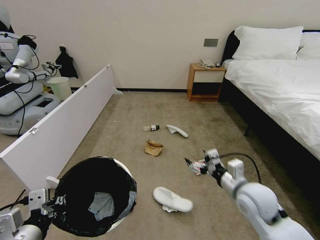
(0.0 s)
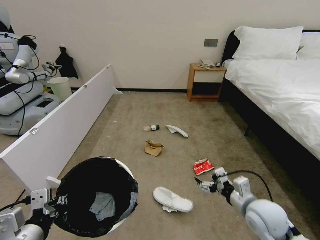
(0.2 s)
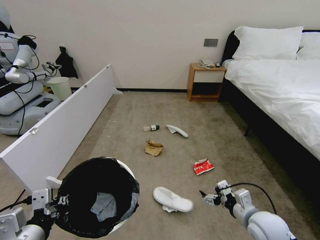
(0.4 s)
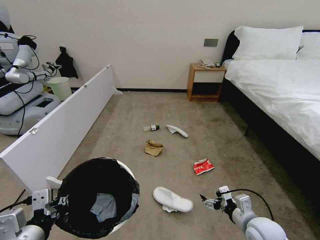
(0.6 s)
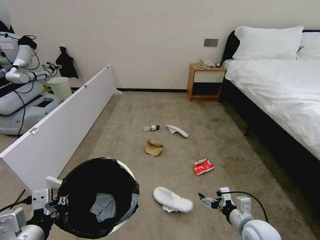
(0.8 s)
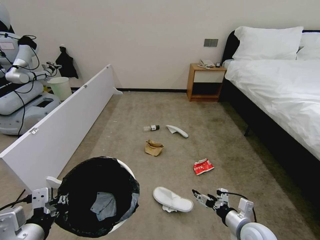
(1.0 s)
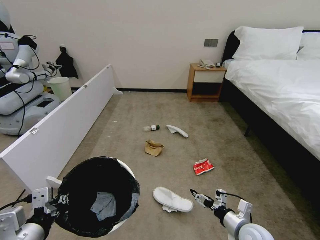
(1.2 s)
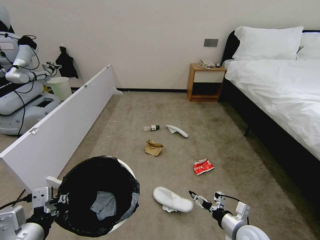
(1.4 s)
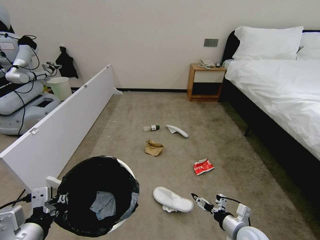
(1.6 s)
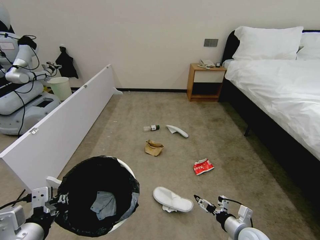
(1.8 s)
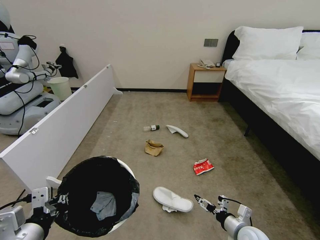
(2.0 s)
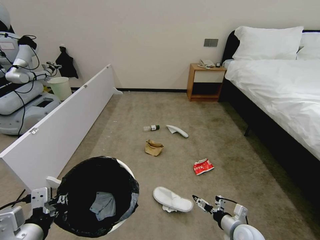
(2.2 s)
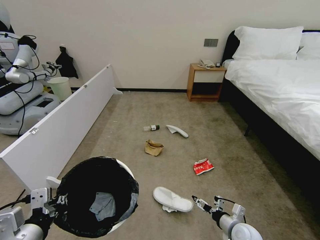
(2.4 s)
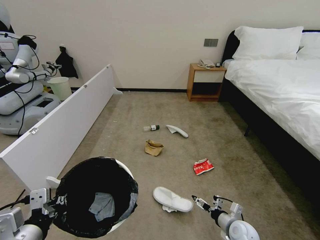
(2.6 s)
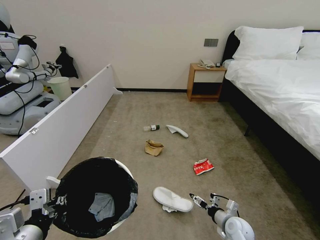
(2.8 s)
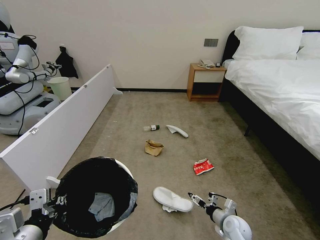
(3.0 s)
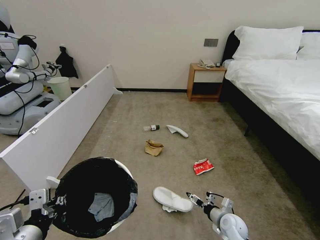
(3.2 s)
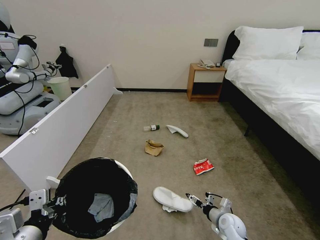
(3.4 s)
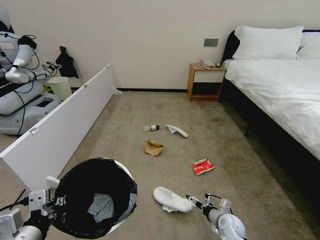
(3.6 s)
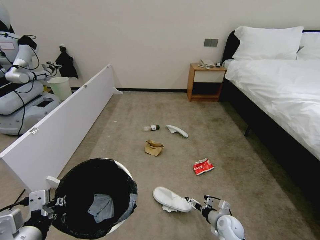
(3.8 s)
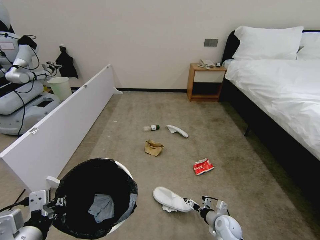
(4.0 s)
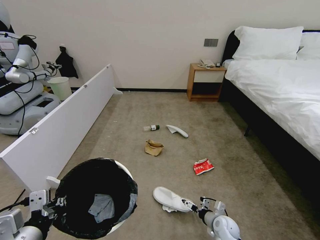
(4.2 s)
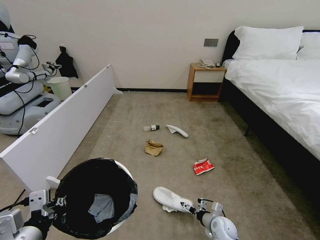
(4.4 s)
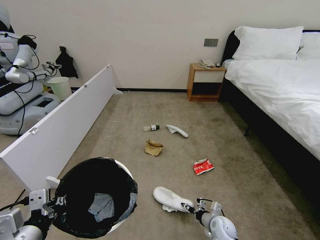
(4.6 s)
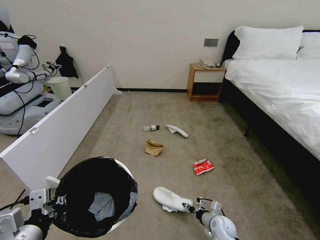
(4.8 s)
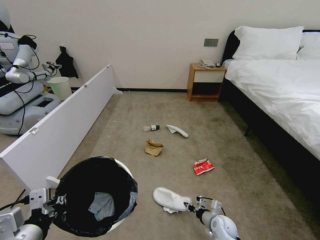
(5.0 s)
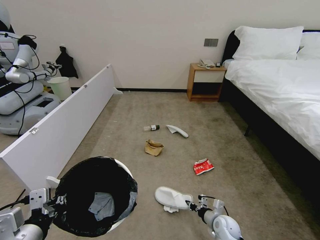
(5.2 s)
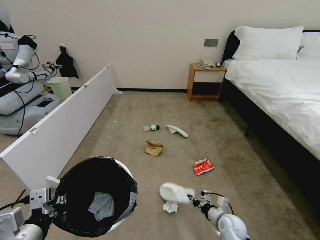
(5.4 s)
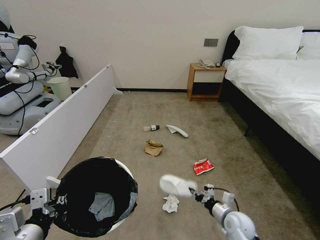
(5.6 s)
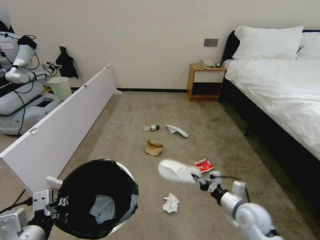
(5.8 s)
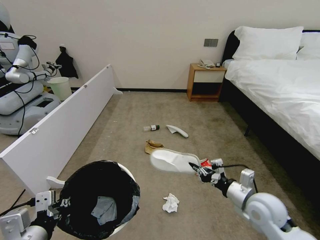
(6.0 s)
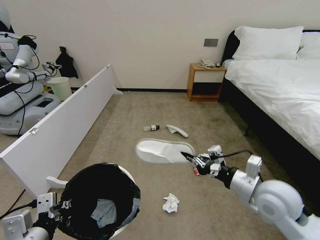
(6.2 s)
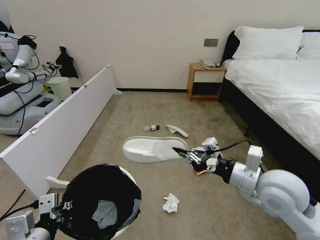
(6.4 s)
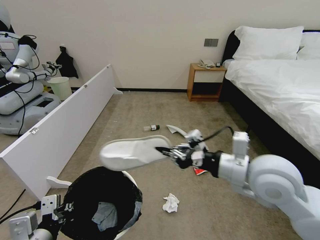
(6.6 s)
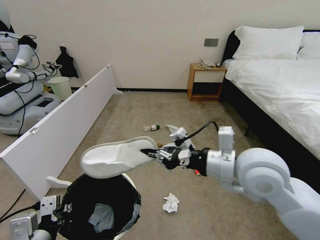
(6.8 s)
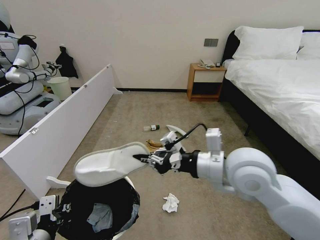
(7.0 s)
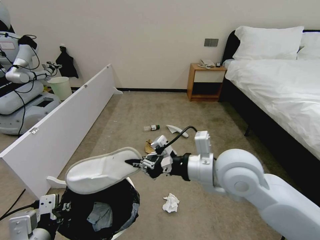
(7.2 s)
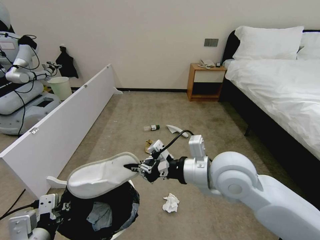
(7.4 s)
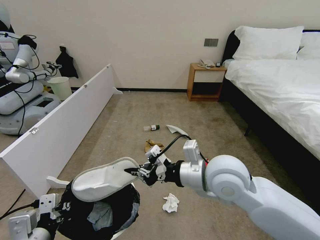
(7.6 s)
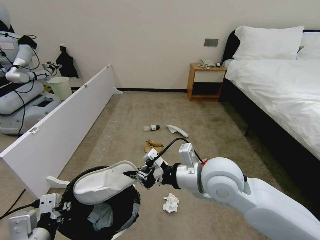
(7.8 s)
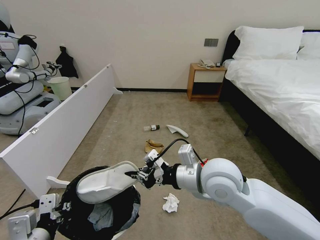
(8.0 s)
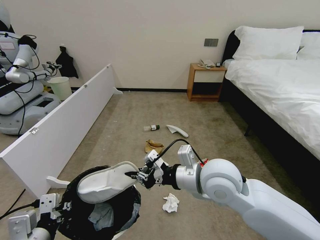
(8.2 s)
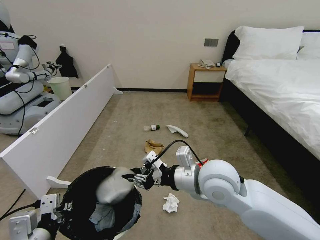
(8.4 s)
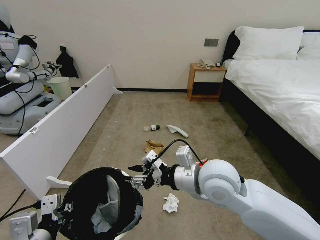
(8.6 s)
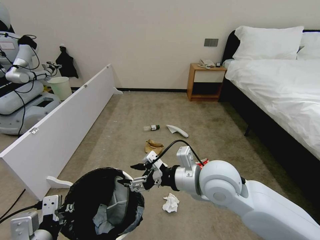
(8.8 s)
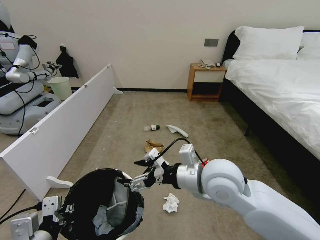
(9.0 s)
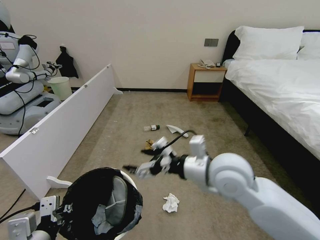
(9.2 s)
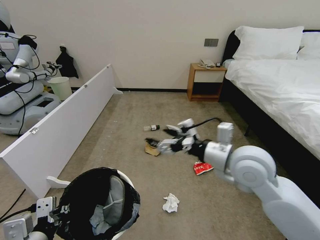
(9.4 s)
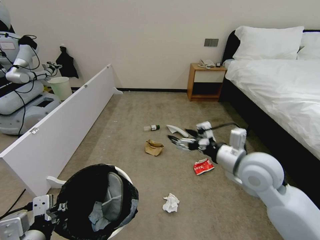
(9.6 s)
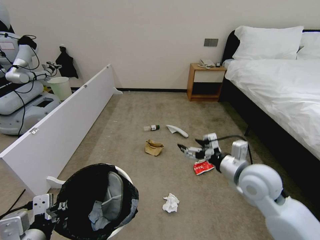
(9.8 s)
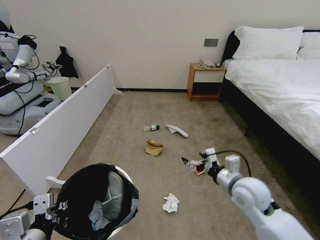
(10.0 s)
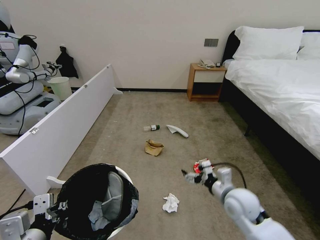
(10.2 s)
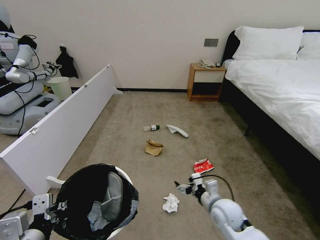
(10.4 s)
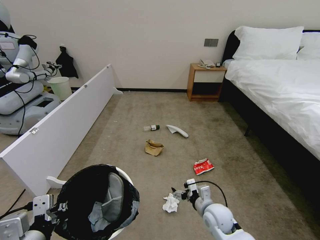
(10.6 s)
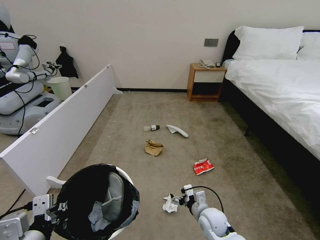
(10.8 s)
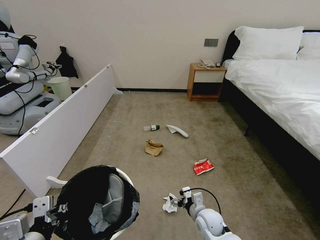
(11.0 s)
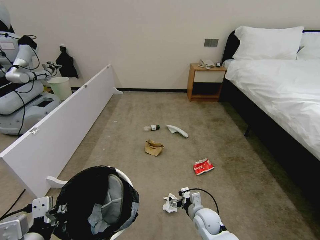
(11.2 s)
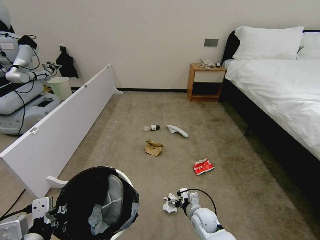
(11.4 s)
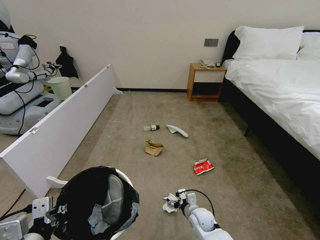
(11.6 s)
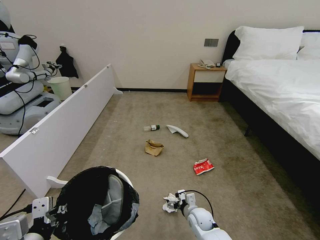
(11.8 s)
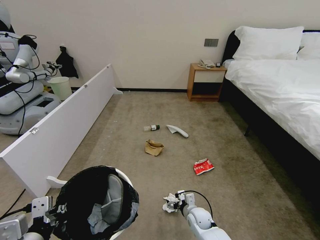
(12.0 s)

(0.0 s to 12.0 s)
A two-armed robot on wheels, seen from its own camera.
Task of the whole recording: Pick up the trash bin, then pick up the garbage from the floor and place it into the trash bin.
0.0 s - 1.6 s: The right gripper goes roughly 15 cm downward.
1.6 s - 3.0 s: The right gripper moves downward and forward, approximately 10 cm.
3.0 s - 4.4 s: The right gripper travels downward by some 5 cm.
4.4 s - 6.0 s: The right gripper is displaced upward by some 25 cm, and closes its fingers.
6.0 s - 7.6 s: The right gripper heads to the left and upward, covering approximately 20 cm.
7.6 s - 9.0 s: The right gripper opens its fingers.
9.0 s - 10.4 s: The right gripper goes some 25 cm downward.
10.4 s - 12.0 s: The right gripper travels downward by some 15 cm.

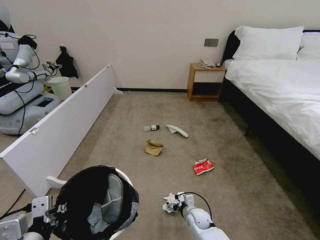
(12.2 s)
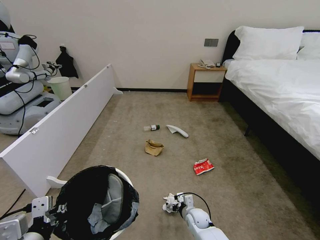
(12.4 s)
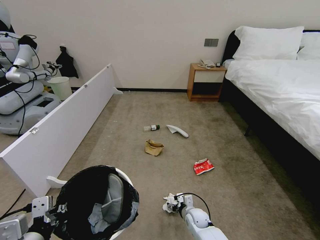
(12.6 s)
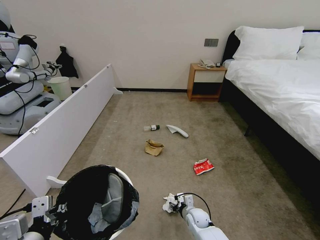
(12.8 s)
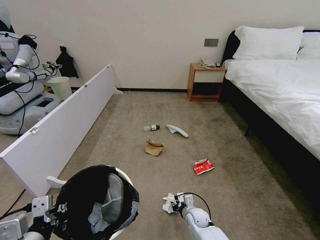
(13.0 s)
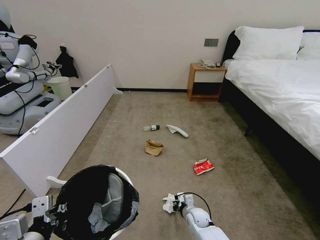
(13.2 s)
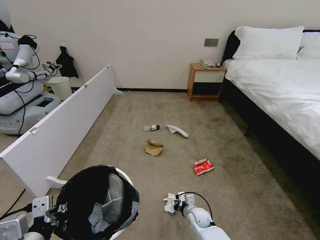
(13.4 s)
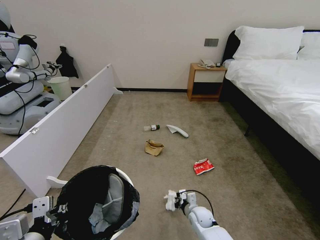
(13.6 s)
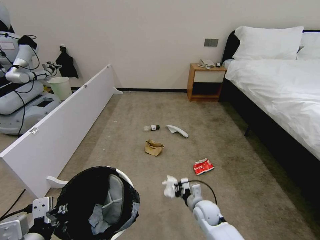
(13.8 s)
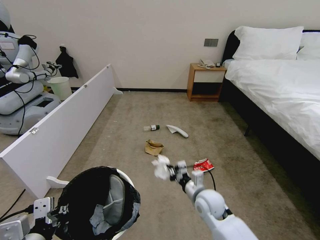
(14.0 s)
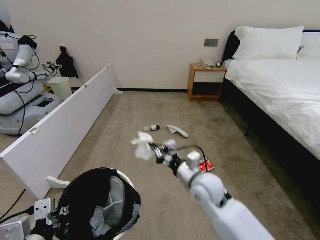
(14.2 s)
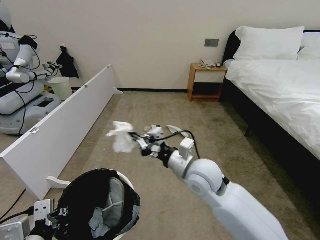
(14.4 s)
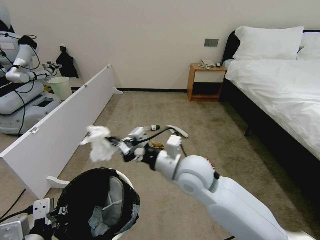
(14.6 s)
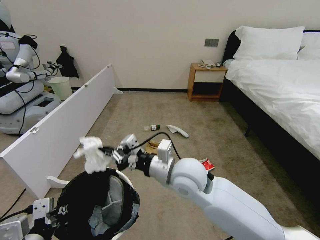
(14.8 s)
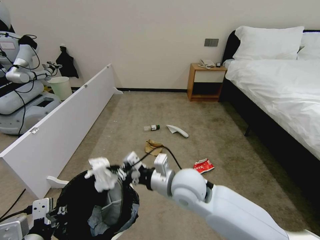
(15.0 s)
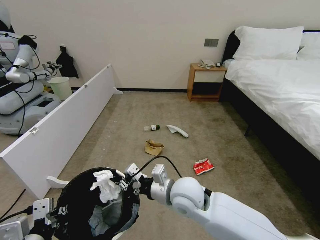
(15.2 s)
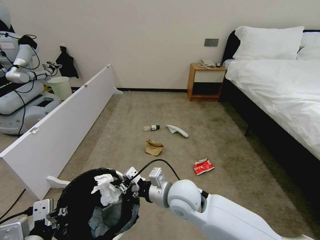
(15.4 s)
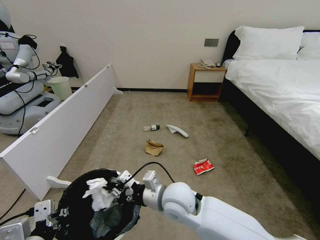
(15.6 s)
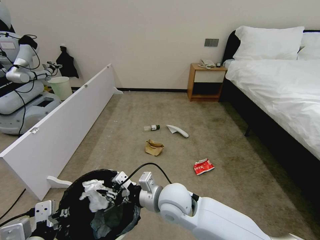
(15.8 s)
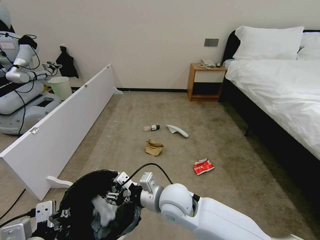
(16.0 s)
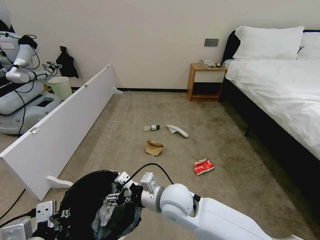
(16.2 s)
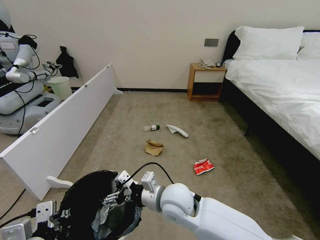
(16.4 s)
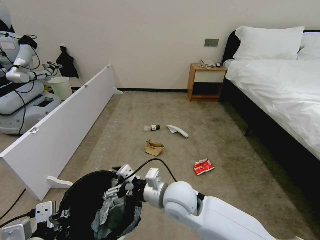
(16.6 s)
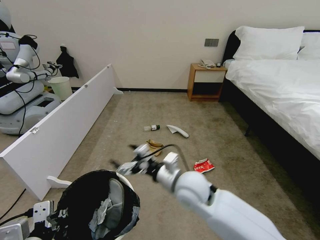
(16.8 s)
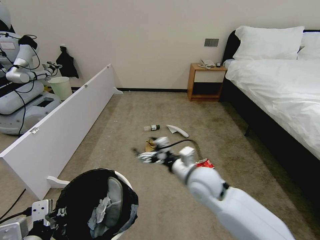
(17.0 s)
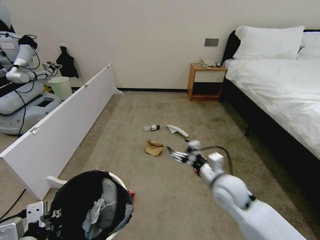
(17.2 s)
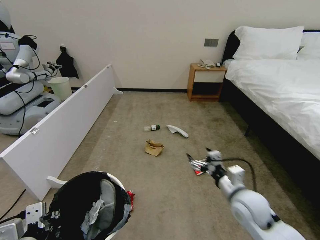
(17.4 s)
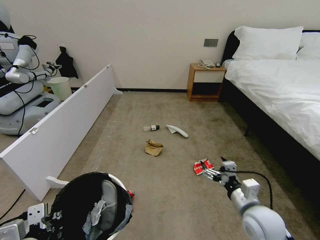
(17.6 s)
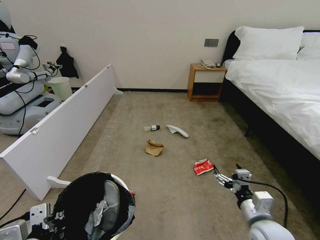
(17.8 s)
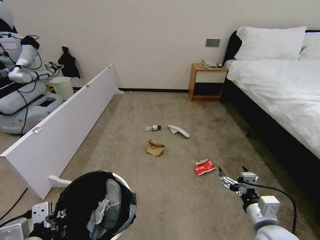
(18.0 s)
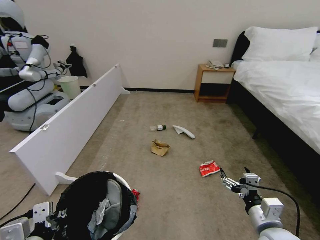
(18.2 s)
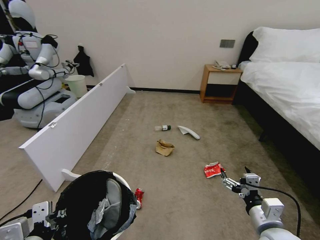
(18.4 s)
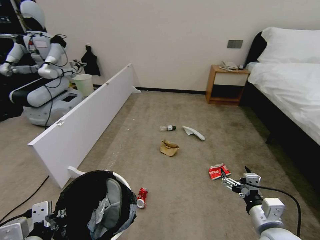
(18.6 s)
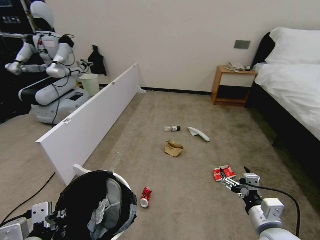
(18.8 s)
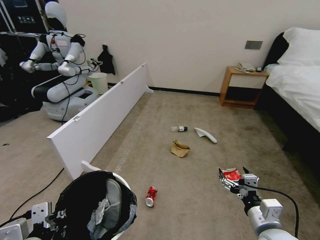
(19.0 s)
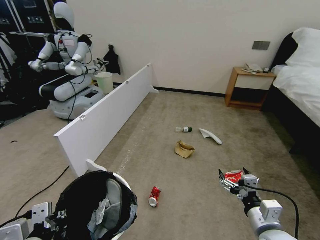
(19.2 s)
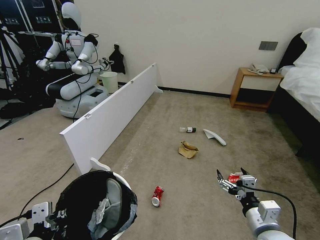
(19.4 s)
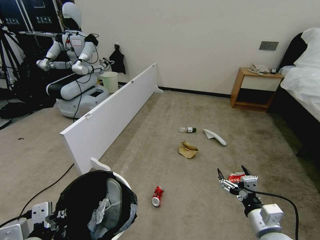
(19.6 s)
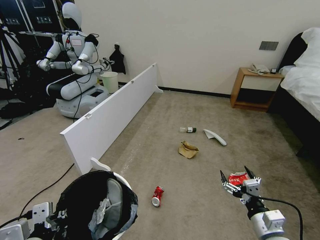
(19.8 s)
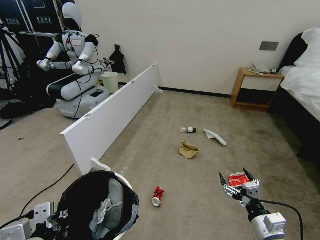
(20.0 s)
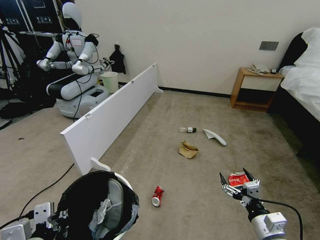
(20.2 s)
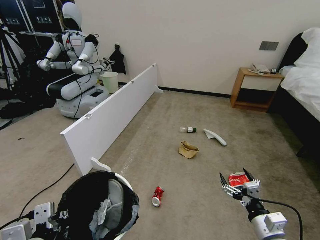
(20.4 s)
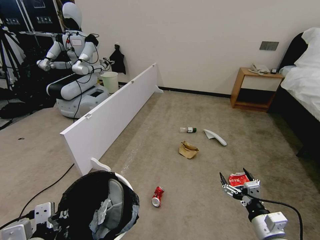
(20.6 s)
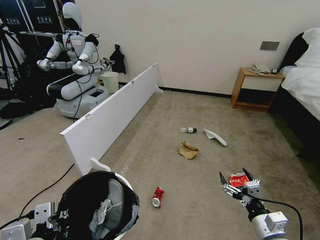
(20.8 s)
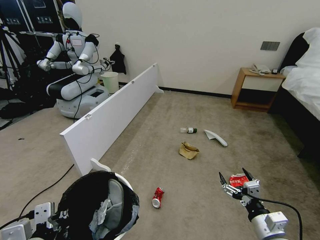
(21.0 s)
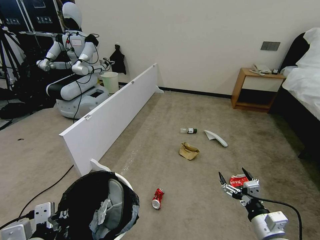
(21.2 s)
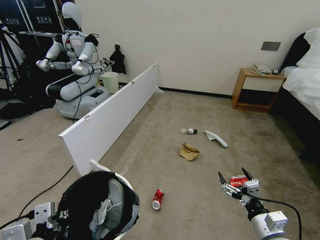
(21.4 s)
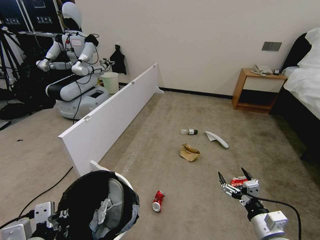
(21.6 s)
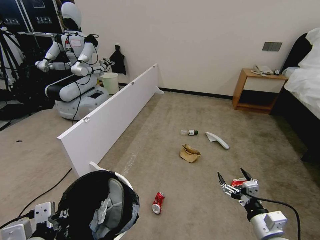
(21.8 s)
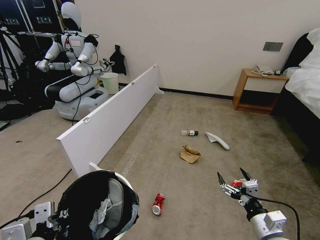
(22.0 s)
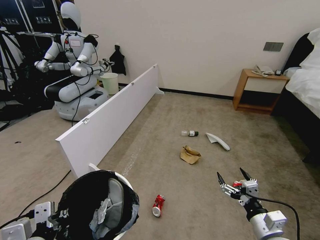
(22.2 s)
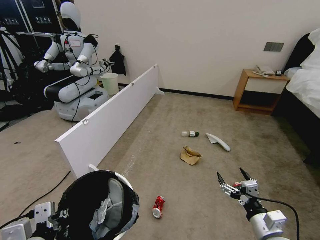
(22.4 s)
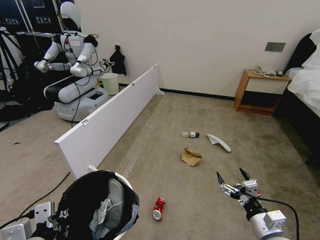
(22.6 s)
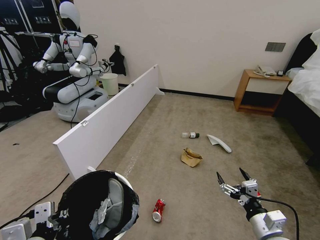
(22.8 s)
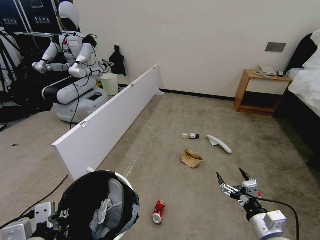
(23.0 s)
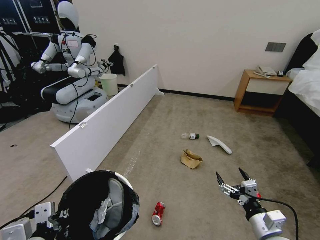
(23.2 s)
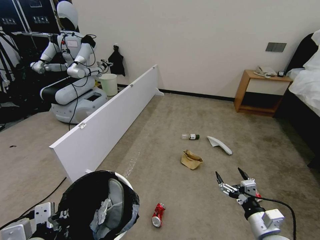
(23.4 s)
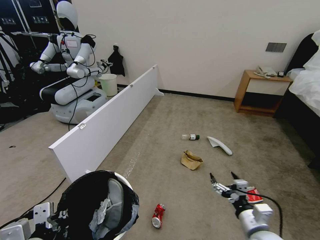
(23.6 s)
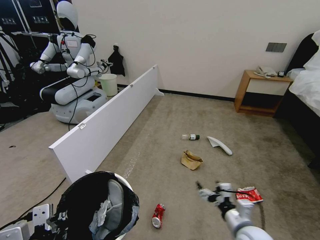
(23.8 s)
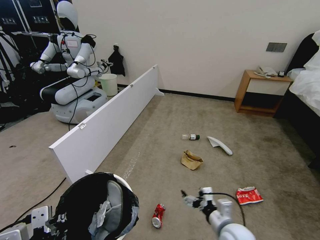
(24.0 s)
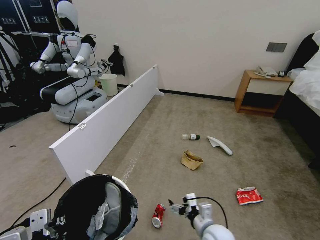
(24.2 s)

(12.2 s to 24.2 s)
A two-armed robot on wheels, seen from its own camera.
Task of the whole recording: Pick up the trash bin, then pick up the garbage from the floor and place it into the trash bin.
12.2 s - 13.8 s: The right gripper shifts some 5 cm upward, and closes its fingers.
13.8 s - 15.2 s: The right gripper travels upward and to the left by approximately 25 cm.
15.2 s - 16.6 s: The right gripper opens.
16.6 s - 18.2 s: The right gripper moves to the right, some 25 cm.
19.8 s - 21.2 s: The grippers move only a little.
21.2 s - 22.6 s: The two grippers keep their place.
22.6 s - 24.2 s: The right gripper moves to the left and downward, about 15 cm.
